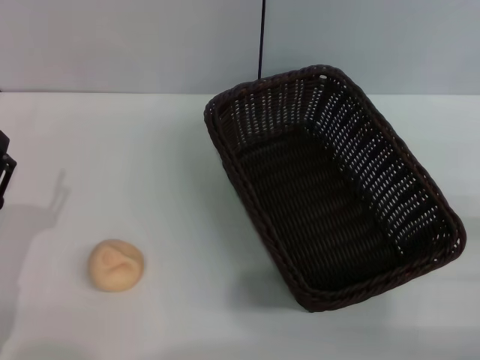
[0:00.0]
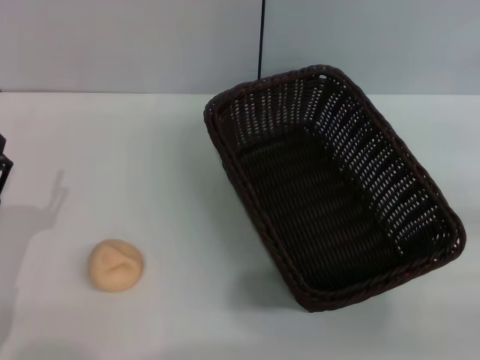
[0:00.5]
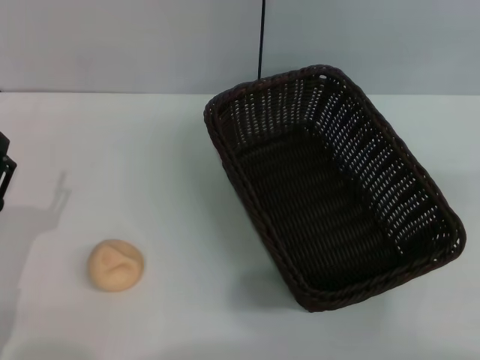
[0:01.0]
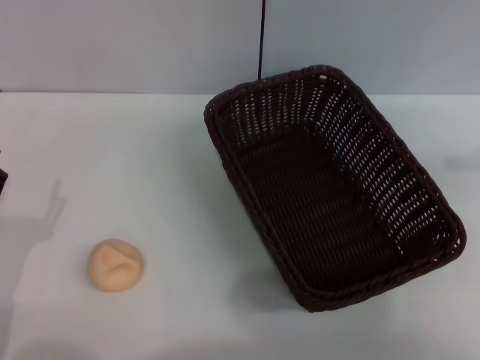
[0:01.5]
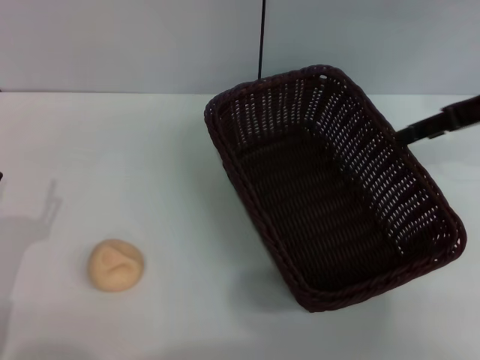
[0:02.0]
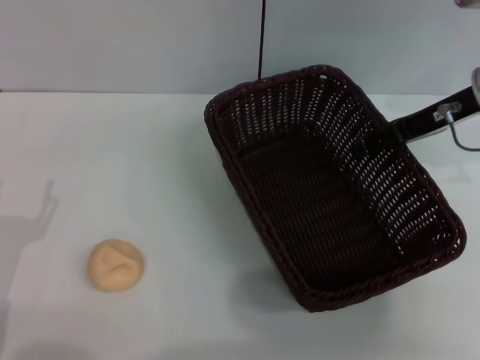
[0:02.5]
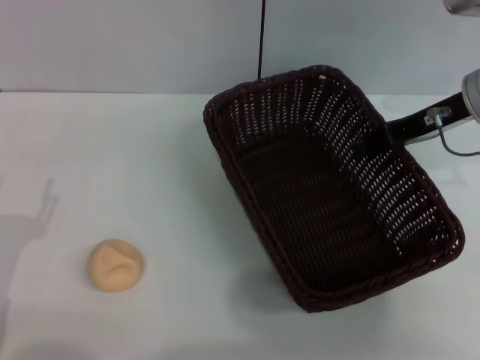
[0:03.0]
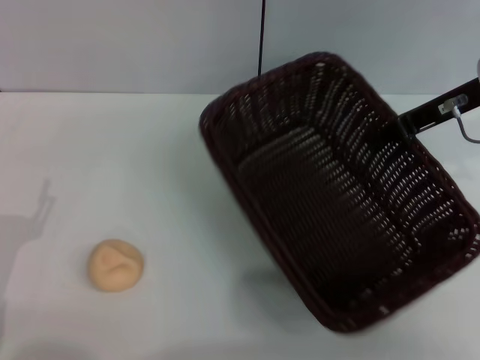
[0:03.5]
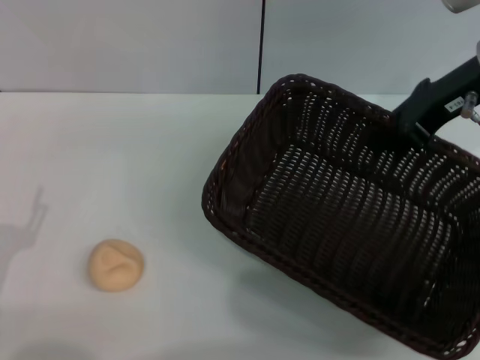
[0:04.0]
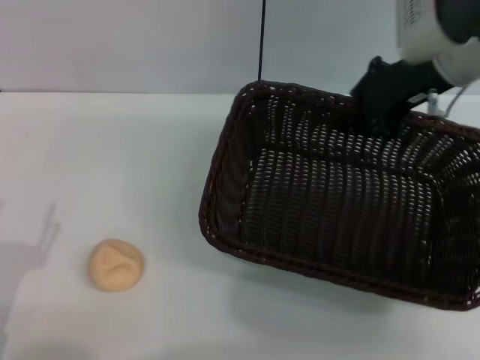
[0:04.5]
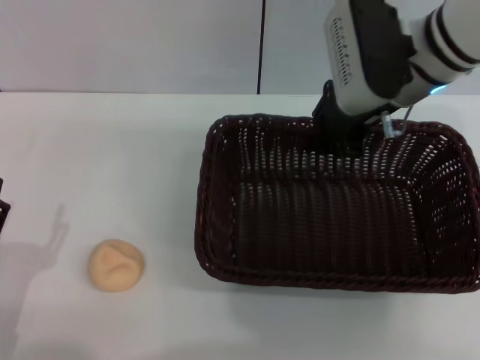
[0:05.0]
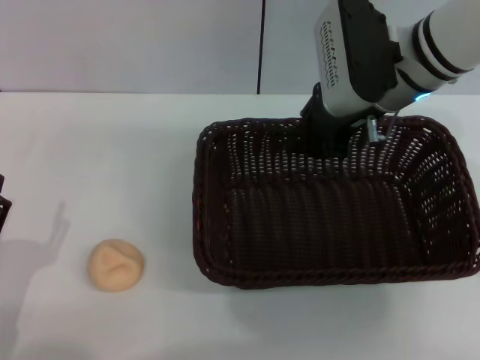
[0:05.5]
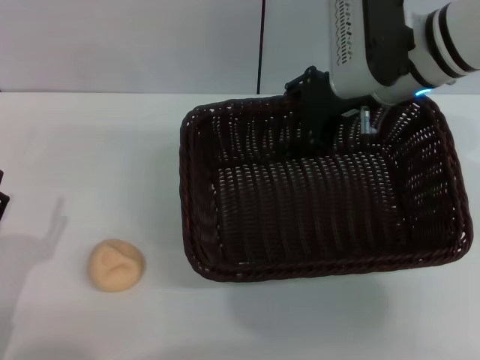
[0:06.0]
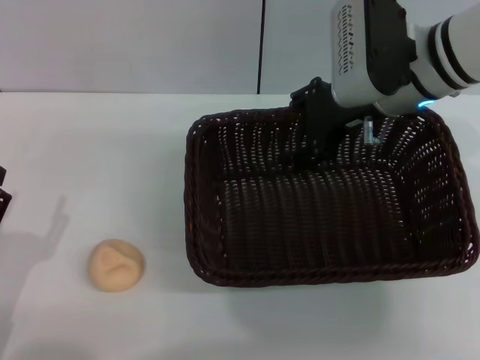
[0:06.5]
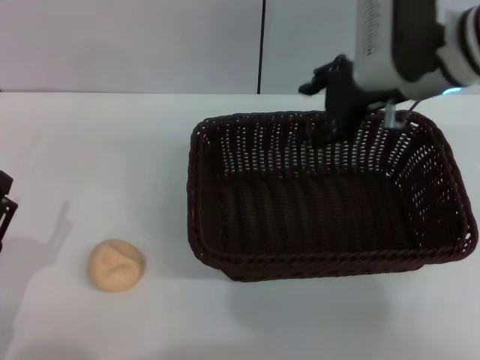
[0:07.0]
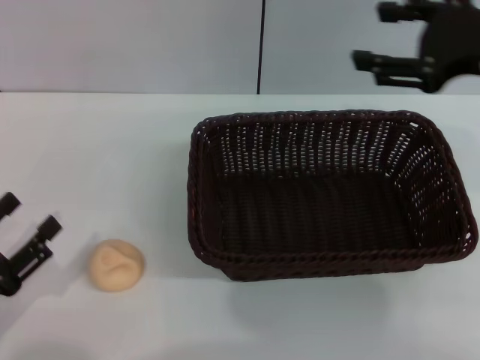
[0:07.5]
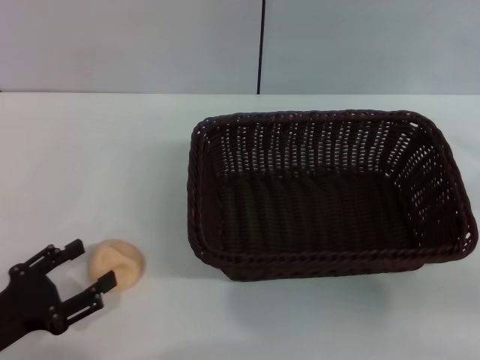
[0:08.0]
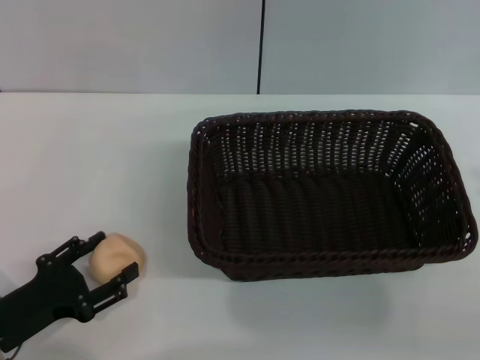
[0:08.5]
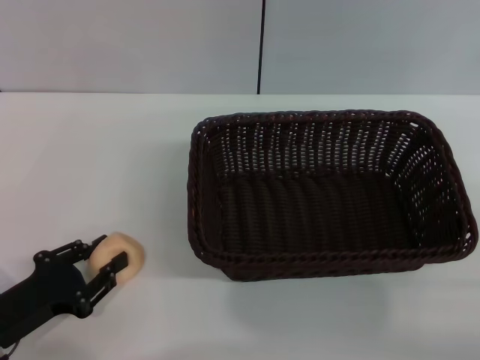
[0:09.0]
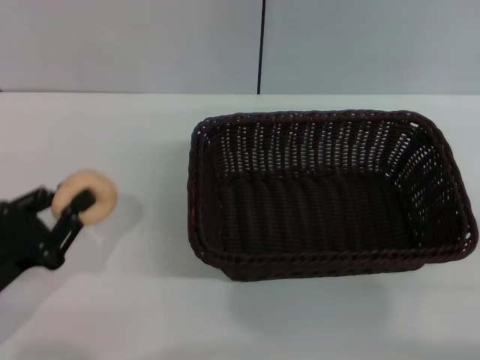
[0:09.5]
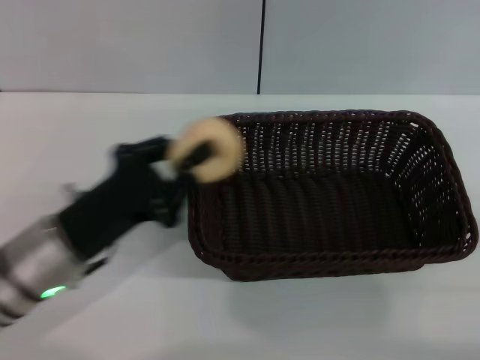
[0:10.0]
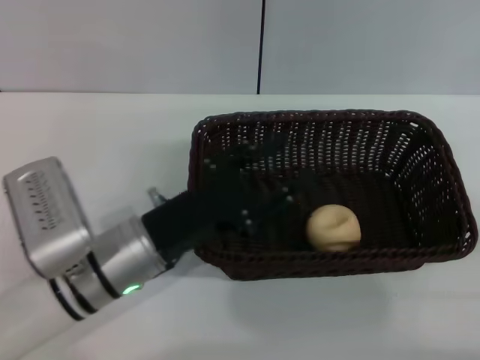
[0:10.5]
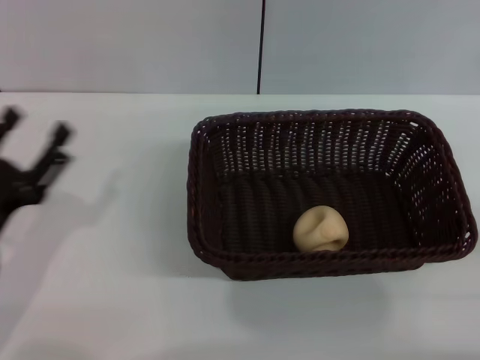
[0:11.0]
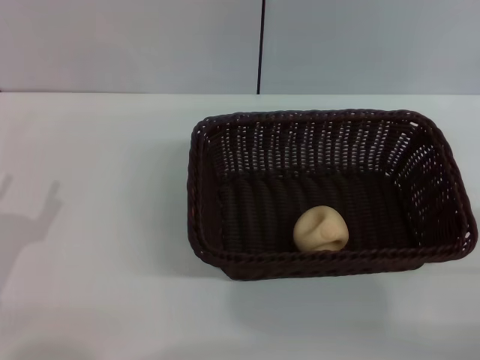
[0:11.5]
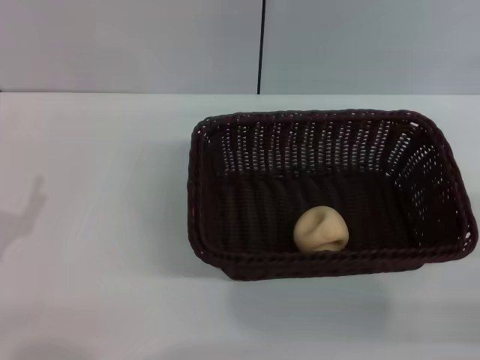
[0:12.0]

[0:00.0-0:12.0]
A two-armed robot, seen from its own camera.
Step, 0:00.0 to 0:06.5: Move the basket to the center of view with the right gripper.
Step, 0:07.0 to 0:09.0: Pick up the egg yolk pastry with the left gripper.
Step, 0:09.5 to 0:10.0: Place the egg yolk pastry into the basket with the left gripper.
0:00.0 to 0:02.0: The right gripper heads forward and upward, covering some 25 cm.
0:02.0 to 0:04.0: The right gripper travels to the left by approximately 5 cm, and closes.
0:04.0 to 0:06.0: The right gripper is displaced to the left by approximately 10 cm, and opens up.
0:06.0 to 0:08.0: The right gripper heads to the right and backward, covering about 30 cm.
0:08.0 to 0:10.0: The right gripper travels downward and backward by approximately 10 cm; the left gripper moves to the right and forward, about 10 cm, and closes up.
0:10.0 to 0:12.0: The right gripper shifts by approximately 5 cm, while the left gripper shifts roughly 10 cm to the left and backward, and opens its fingers.
